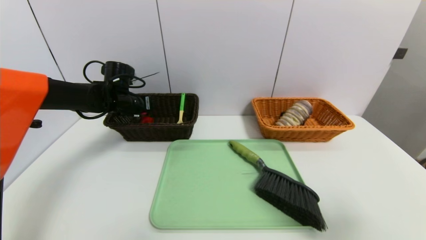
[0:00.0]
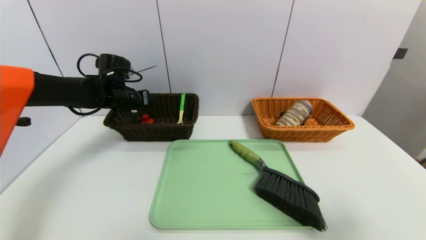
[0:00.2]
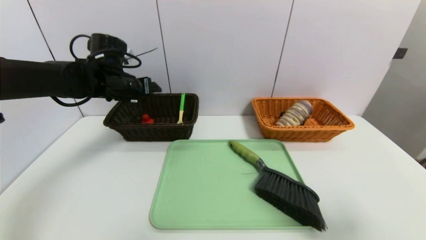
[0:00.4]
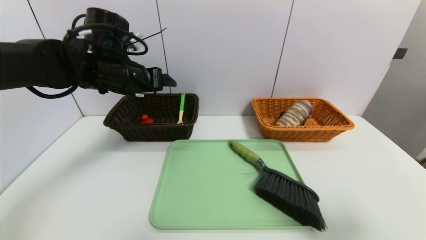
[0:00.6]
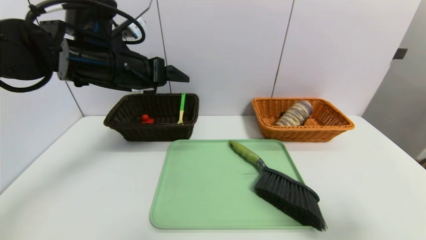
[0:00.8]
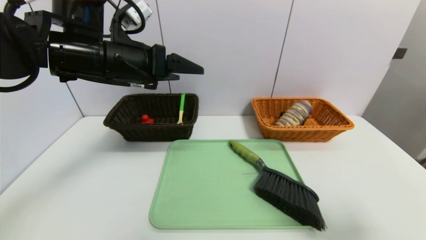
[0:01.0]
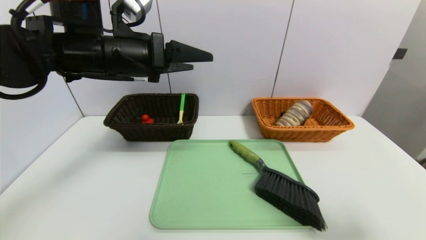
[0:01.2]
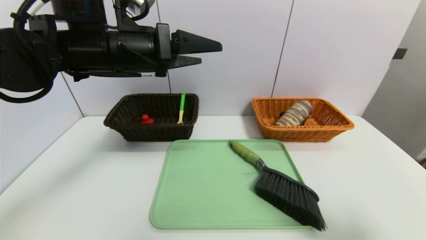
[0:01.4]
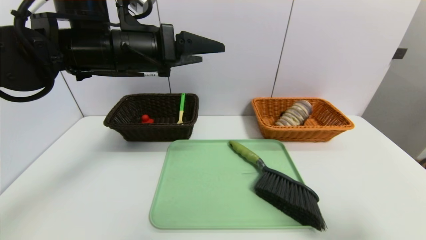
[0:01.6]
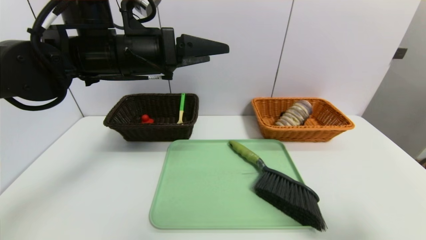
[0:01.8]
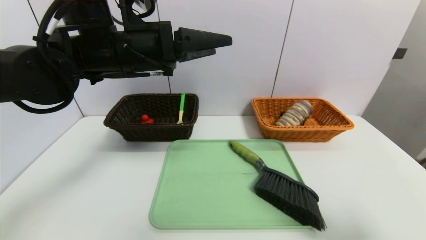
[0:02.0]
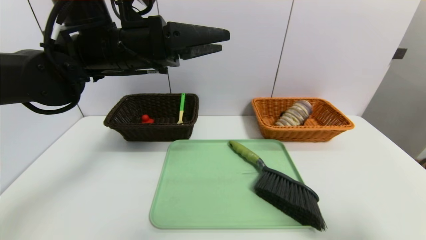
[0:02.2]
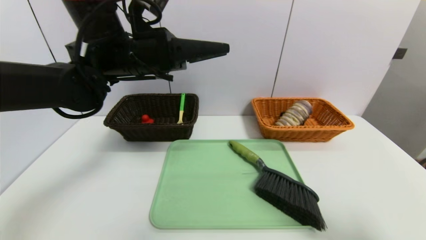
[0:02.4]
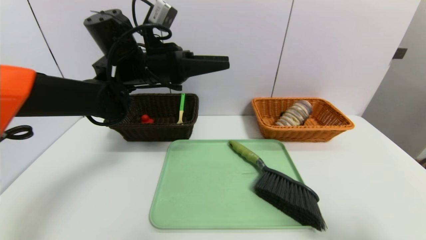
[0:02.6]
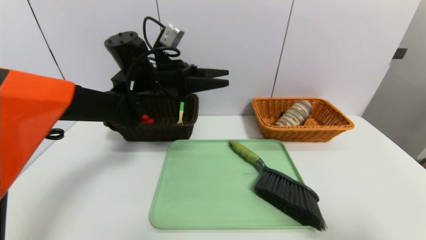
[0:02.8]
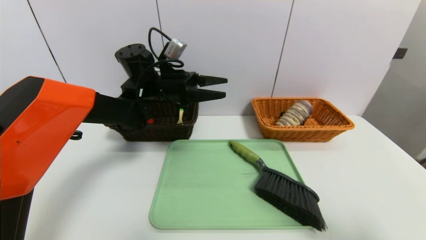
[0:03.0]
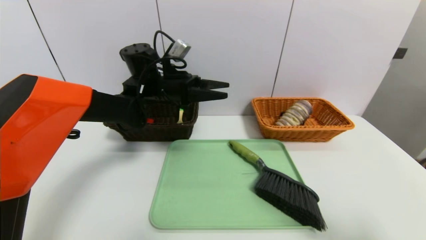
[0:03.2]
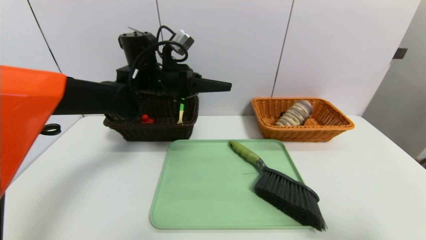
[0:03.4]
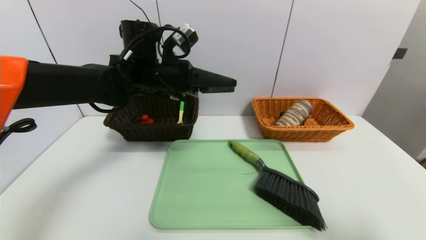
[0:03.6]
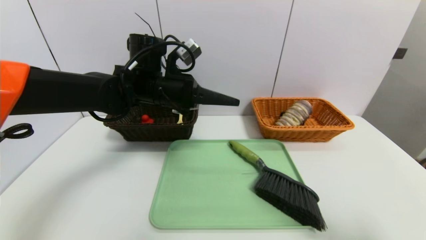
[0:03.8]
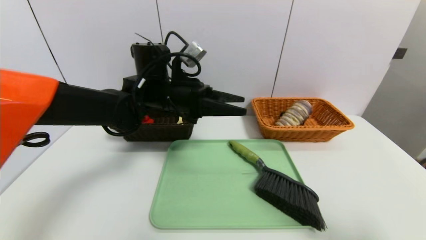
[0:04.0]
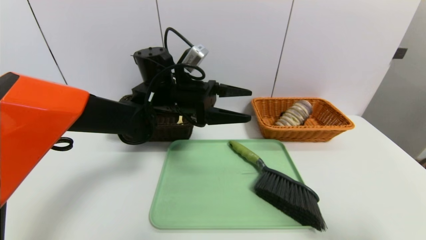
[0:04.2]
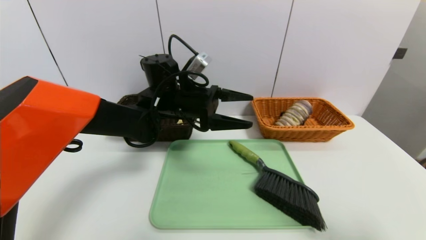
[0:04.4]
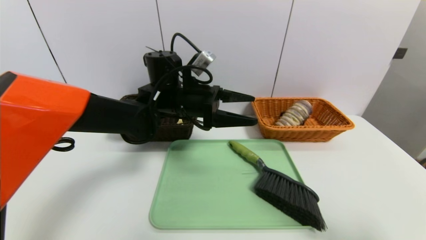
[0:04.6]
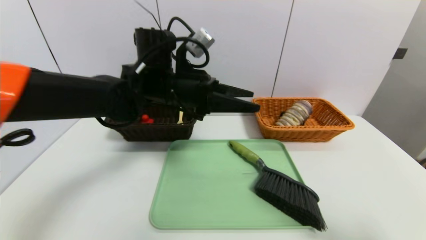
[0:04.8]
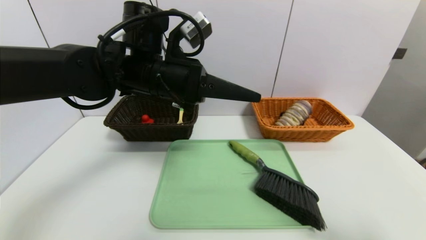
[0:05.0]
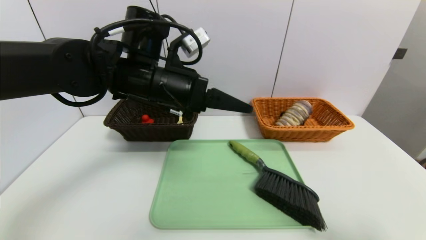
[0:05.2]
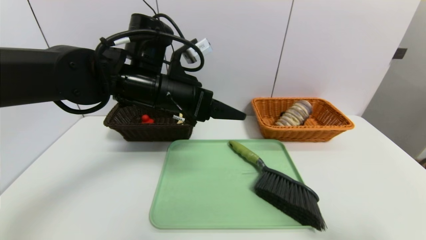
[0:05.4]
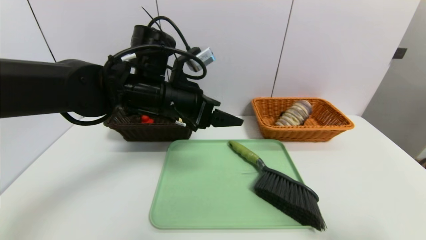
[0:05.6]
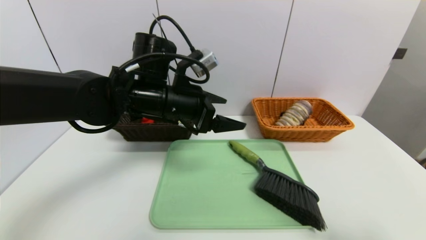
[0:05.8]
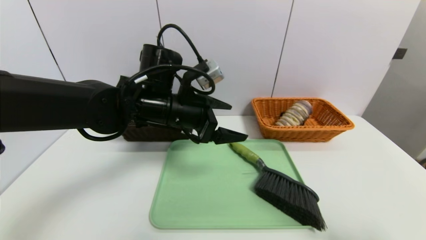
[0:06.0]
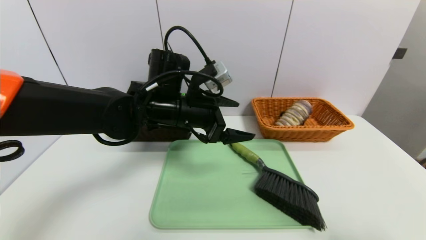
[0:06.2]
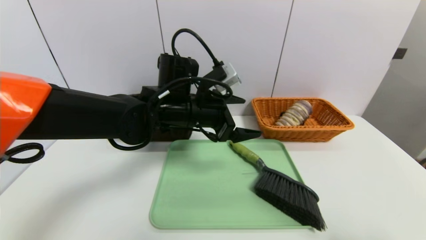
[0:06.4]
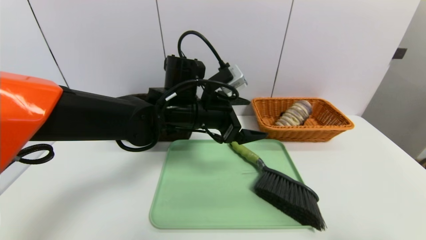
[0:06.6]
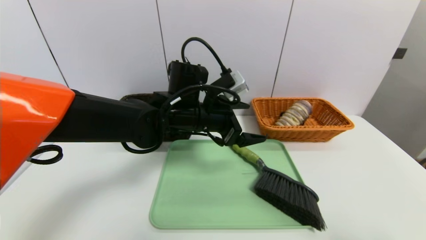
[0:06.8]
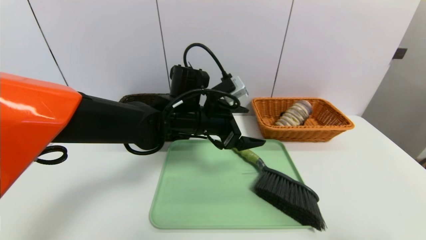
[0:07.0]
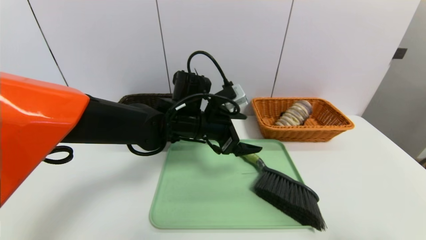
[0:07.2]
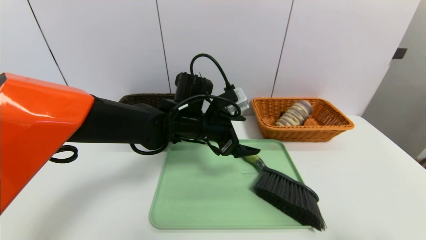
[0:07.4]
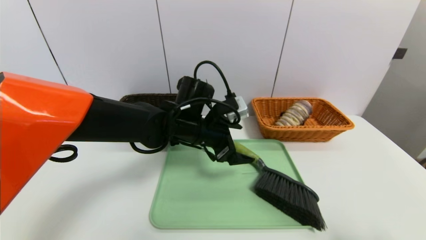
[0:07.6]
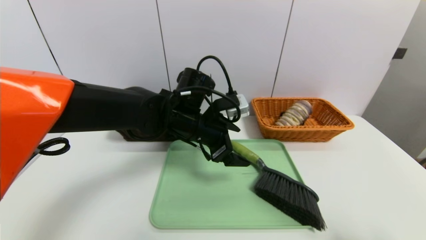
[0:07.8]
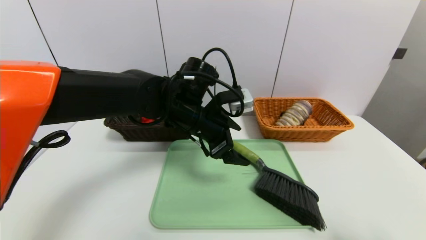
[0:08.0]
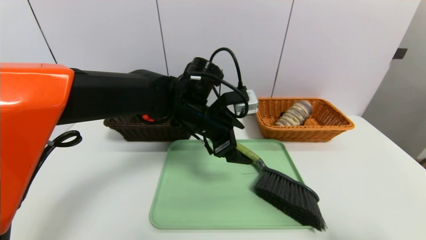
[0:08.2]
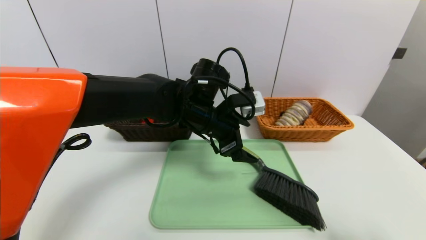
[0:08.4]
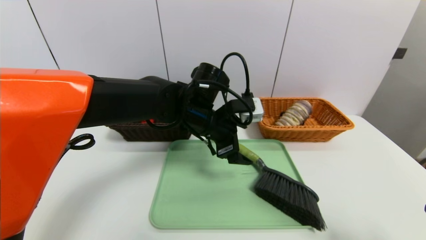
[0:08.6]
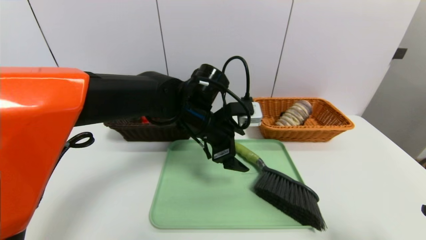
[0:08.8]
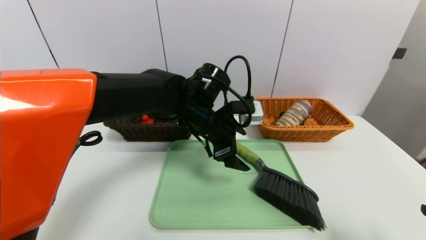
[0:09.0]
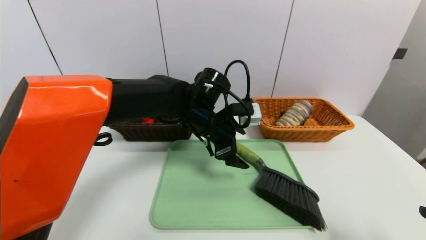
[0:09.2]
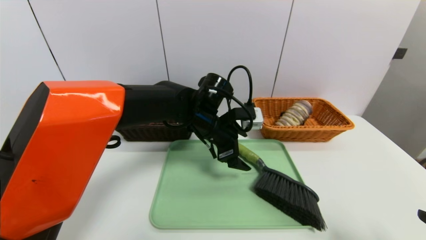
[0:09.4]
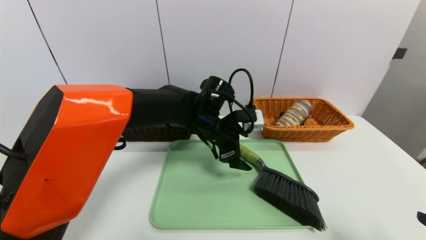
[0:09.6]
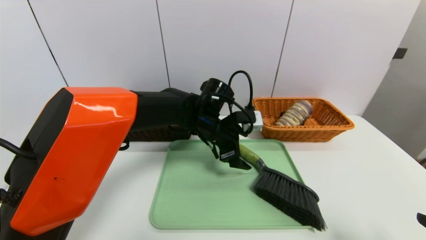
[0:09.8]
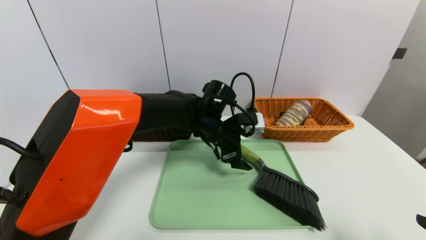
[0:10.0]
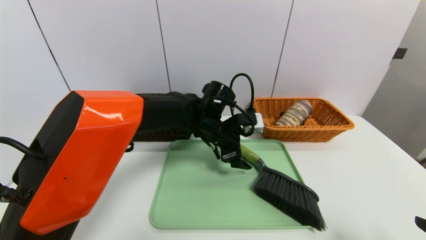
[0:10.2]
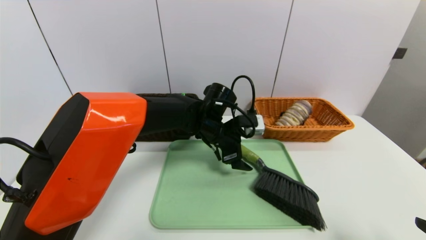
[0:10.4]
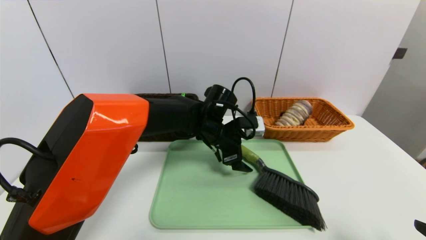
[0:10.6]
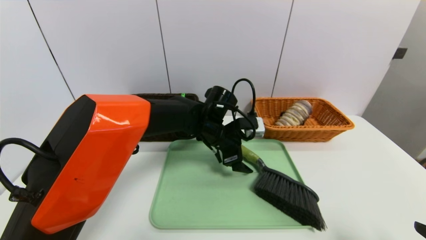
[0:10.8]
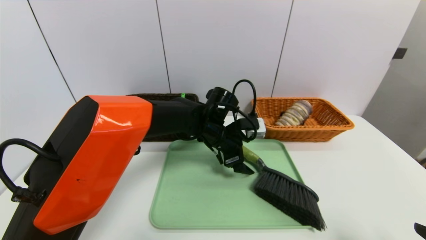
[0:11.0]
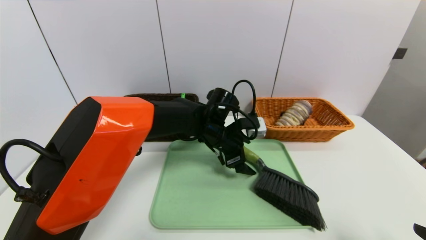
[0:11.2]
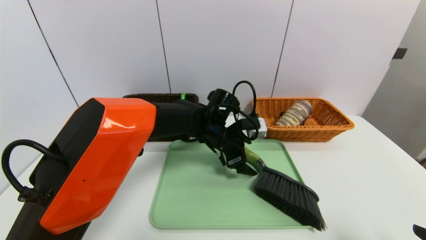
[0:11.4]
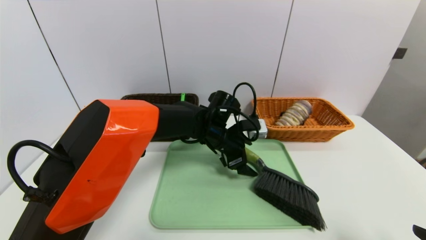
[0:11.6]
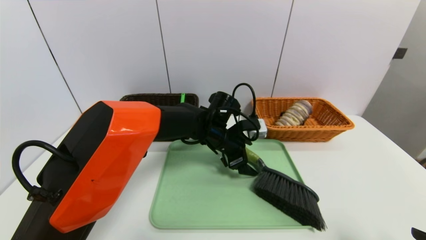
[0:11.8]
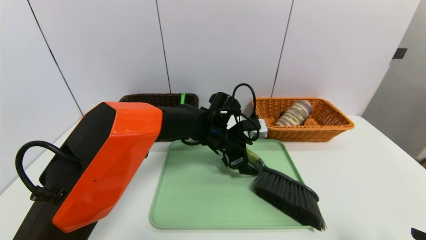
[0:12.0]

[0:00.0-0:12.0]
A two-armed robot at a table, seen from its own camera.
Task of the whole recording: place the food in the right basket with the right gripper, and place the non food items in the left basket with the left gripper.
0:00.0 to 0:01.6: The left gripper heads upward, backward and to the right, covering some 25 cm.
0:01.6 to 0:03.0: The left gripper shifts about 15 cm forward and downward.
0:03.0 to 0:04.4: The left gripper is displaced to the right by approximately 5 cm.
0:04.4 to 0:06.0: The left gripper shifts approximately 5 cm backward.
0:06.0 to 0:07.6: The left gripper goes roughly 5 cm downward.
0:07.6 to 0:09.0: The grippers make only small movements.
0:09.0 to 0:10.4: The left gripper heads downward, covering some 5 cm.
0:10.4 to 0:12.0: The grippers move only a little.

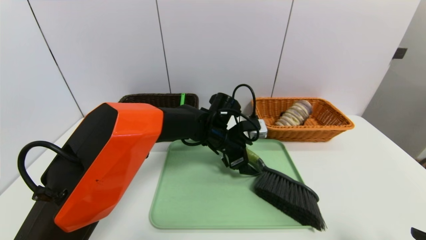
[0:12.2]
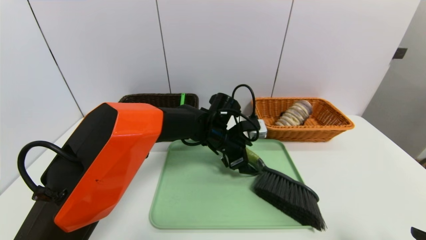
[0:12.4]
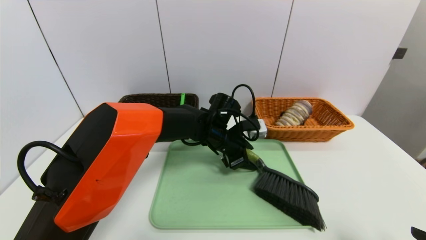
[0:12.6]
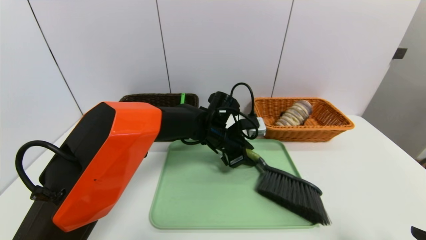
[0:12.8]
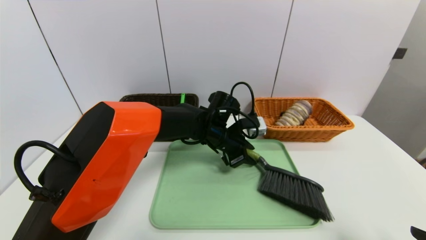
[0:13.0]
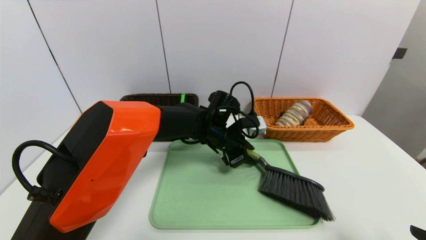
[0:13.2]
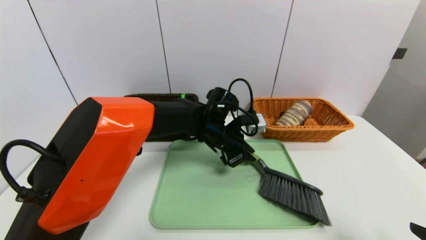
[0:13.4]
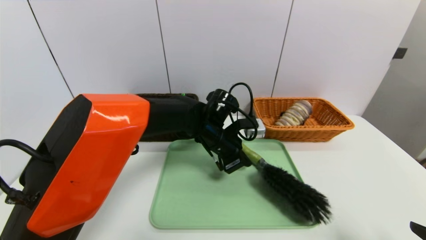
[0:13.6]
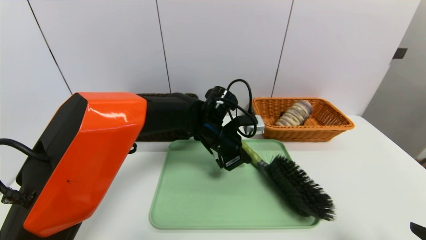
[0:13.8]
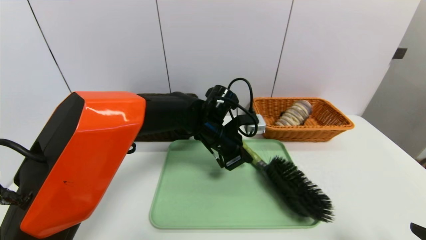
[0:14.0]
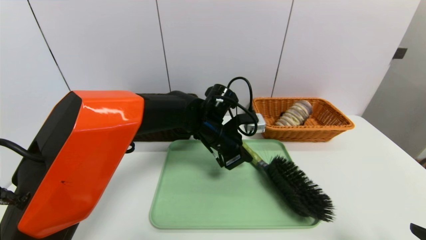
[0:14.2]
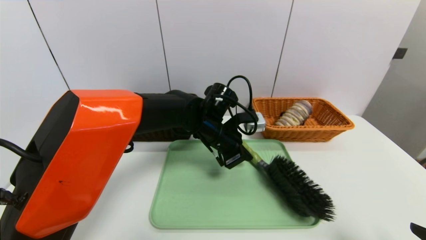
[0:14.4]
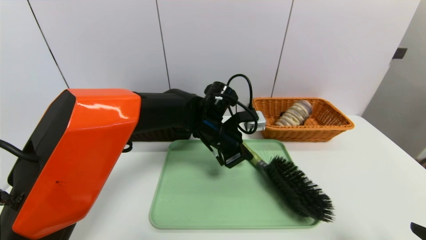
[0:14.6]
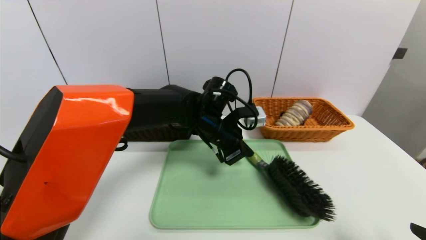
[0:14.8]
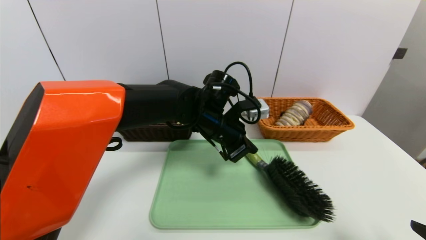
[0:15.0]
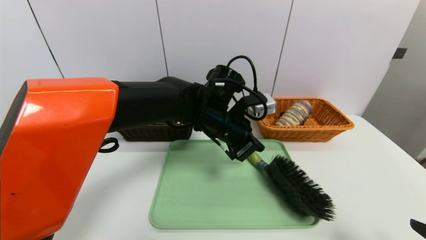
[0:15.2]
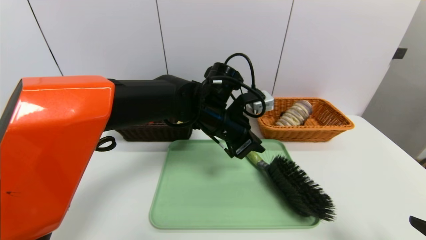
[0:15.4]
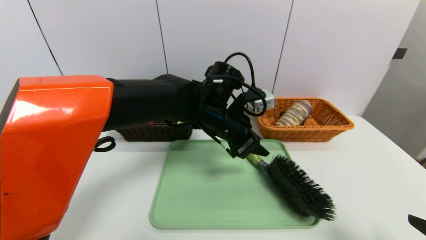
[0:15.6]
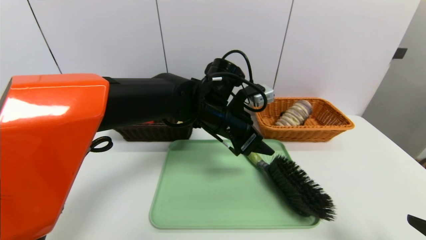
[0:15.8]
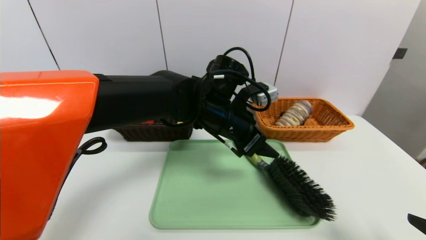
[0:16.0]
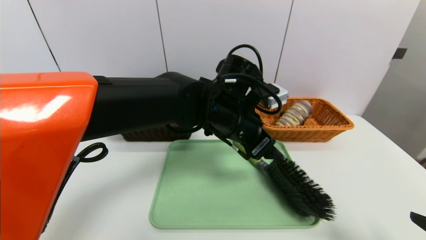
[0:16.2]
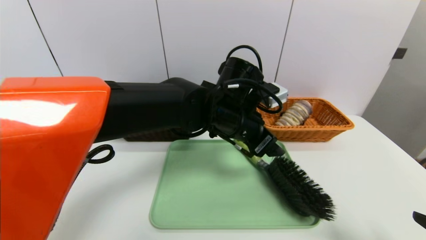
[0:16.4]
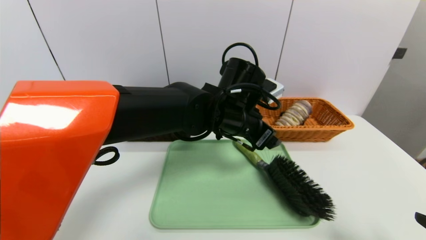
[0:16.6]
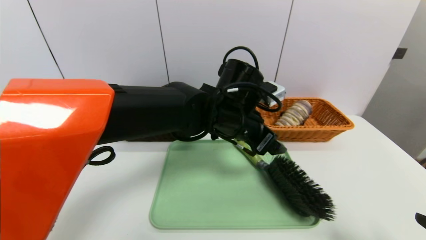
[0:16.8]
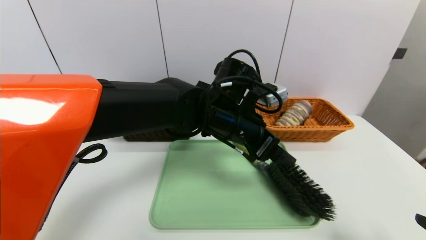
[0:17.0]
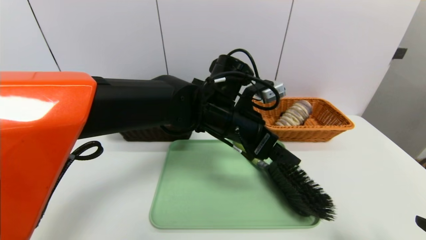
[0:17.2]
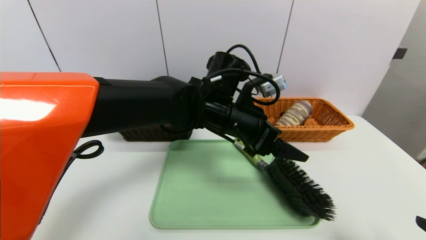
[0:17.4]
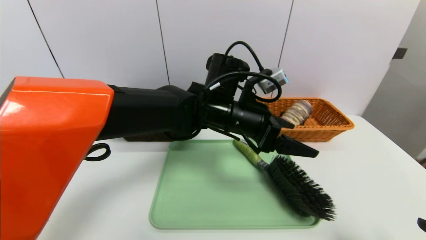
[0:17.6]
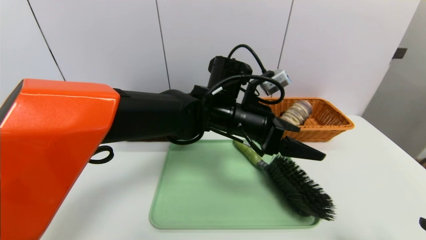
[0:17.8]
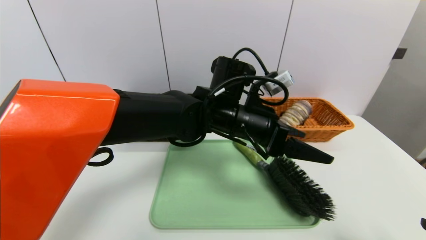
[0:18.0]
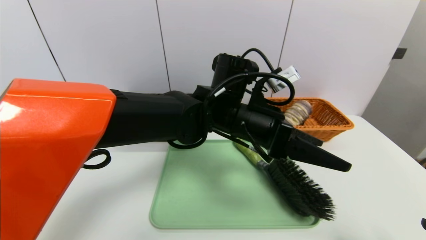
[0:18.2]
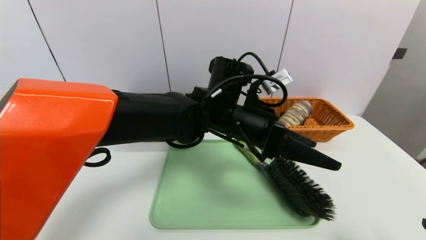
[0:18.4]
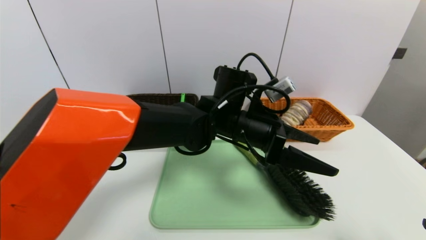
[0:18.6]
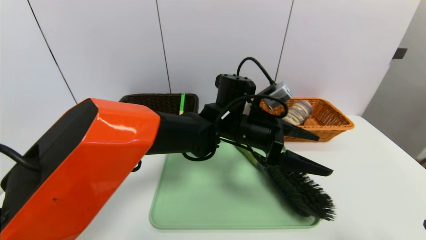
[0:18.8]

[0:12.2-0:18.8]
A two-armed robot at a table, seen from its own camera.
Task of the whole recording: place the food in the right basket with the right gripper, and place the non food items in the left basket with the left gripper.
0:12.2 to 0:13.8: The left gripper closes its fingers.
0:13.8 to 0:15.4: The left gripper shifts some 5 cm upward.
0:15.4 to 0:17.2: The left gripper opens.
0:17.2 to 0:18.8: The left gripper changes place by some 5 cm.
